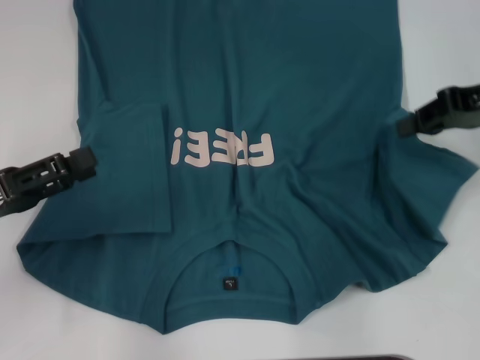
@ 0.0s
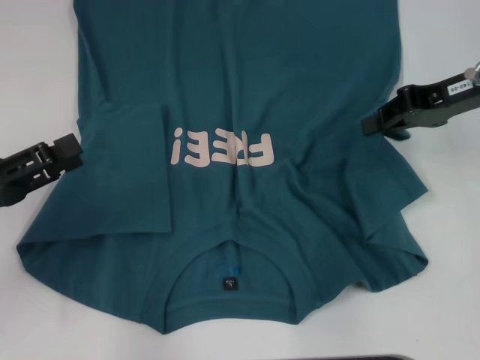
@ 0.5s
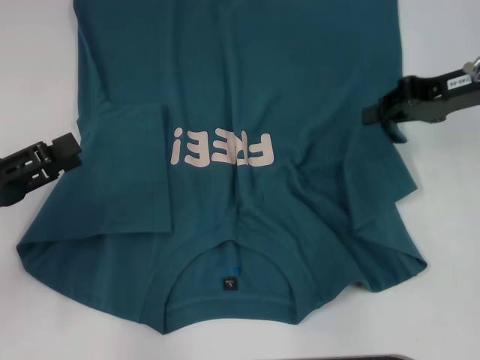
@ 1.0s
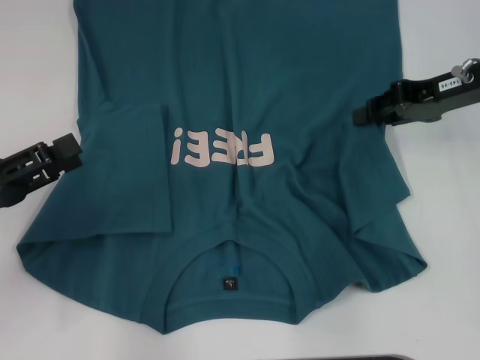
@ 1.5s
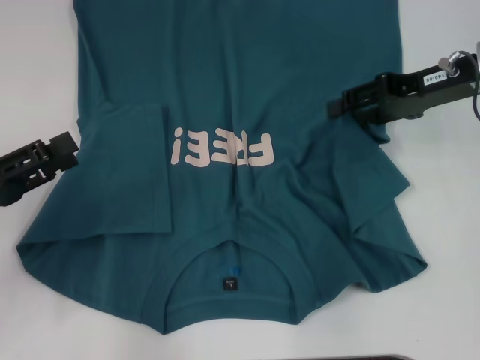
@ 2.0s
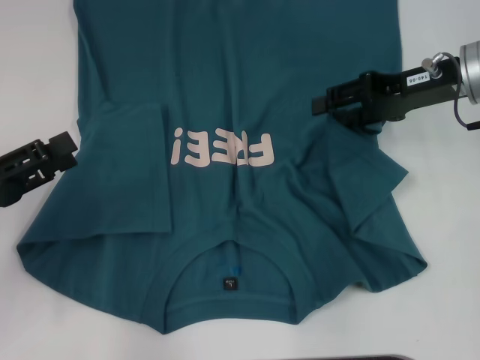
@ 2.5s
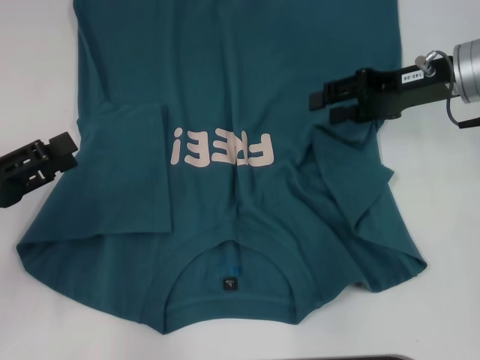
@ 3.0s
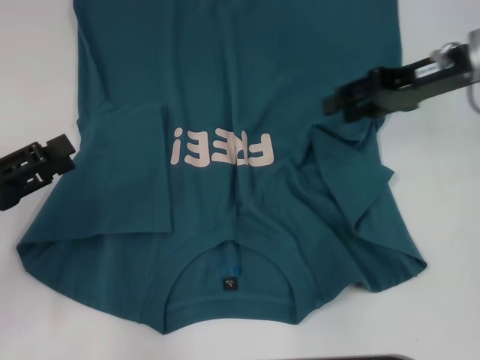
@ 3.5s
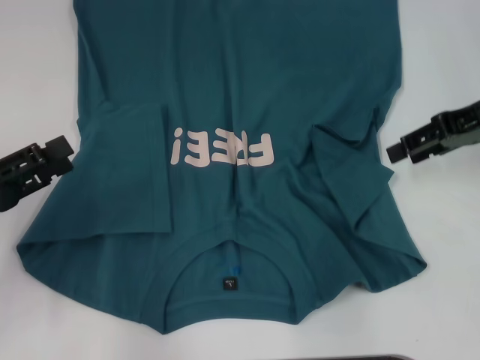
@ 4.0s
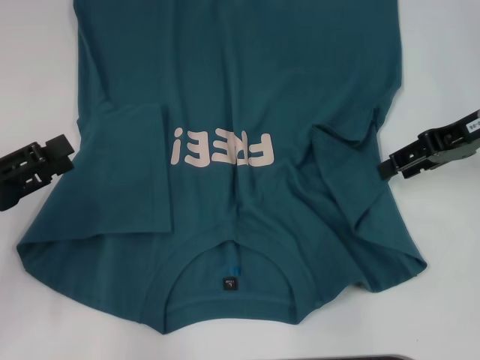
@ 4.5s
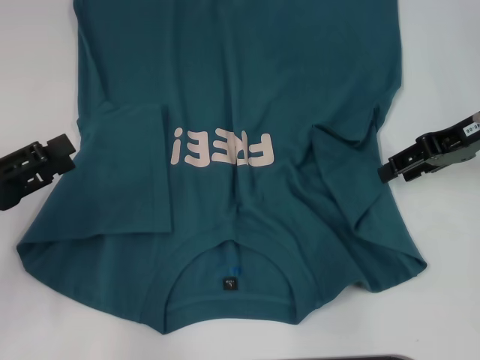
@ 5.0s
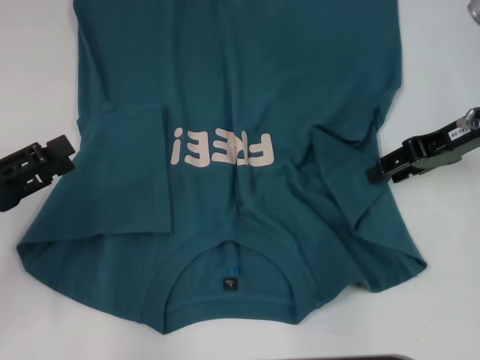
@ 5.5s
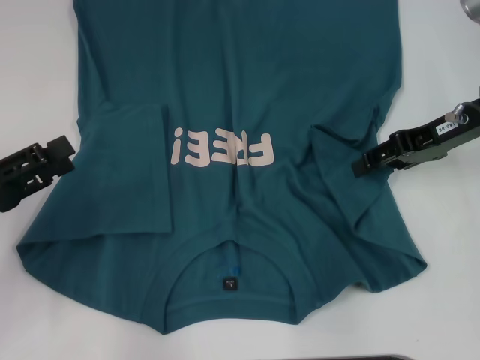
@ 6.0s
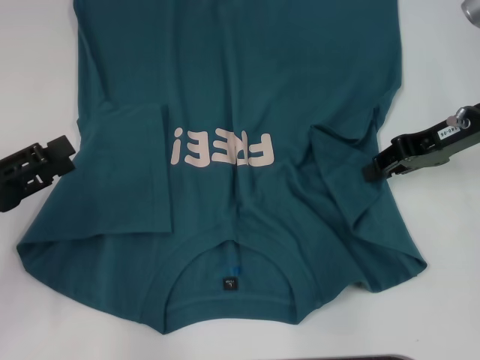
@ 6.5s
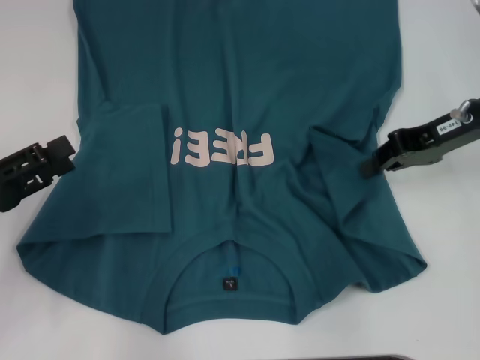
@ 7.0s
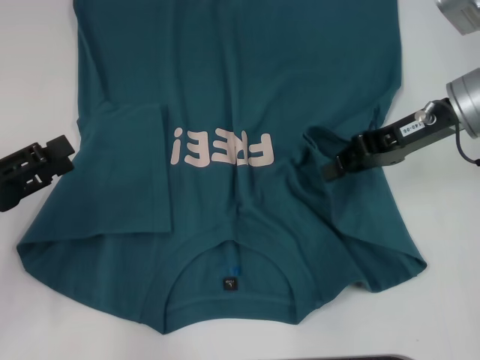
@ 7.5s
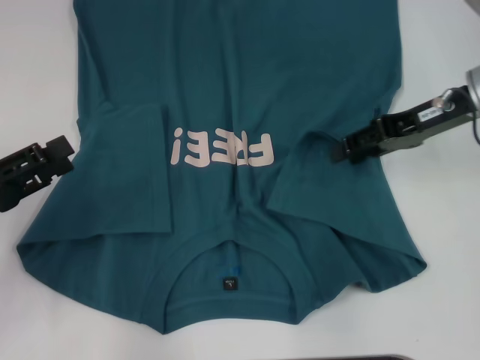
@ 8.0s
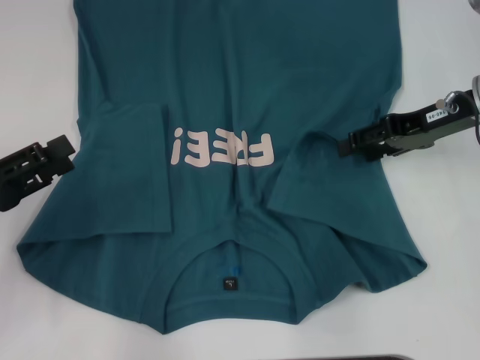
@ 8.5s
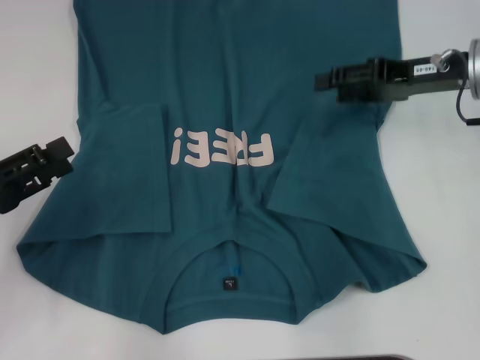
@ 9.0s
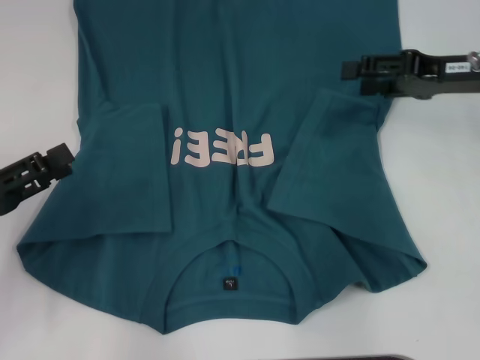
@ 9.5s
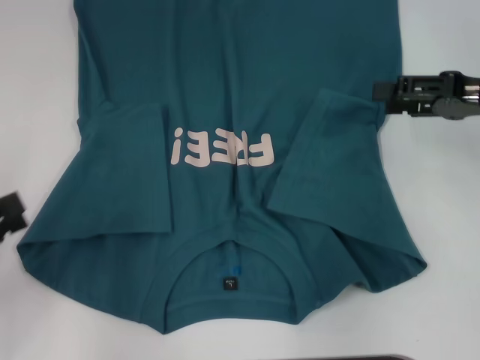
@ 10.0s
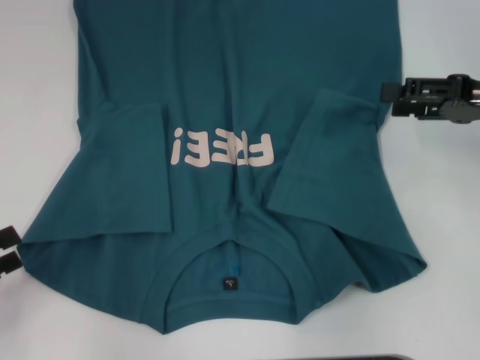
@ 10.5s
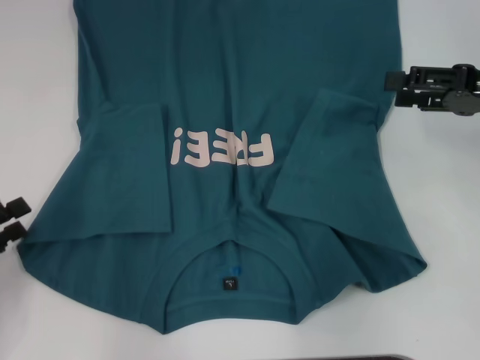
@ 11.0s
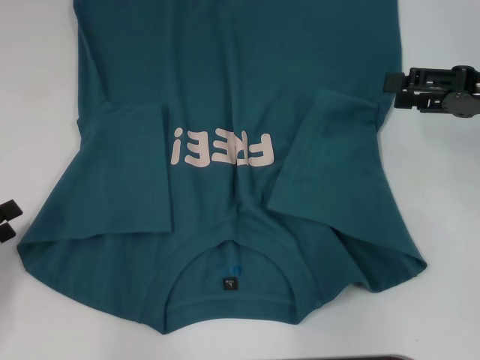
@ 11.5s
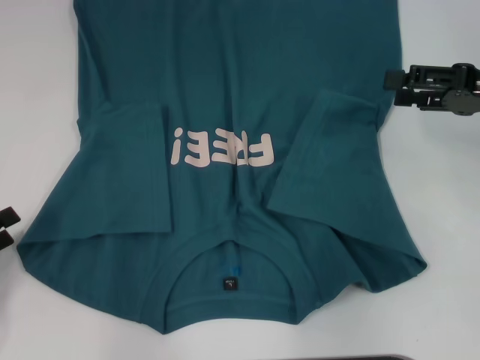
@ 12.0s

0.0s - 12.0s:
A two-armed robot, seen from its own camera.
Step, 0.0s - 9.0s: Fold the bottom right sleeve to the right.
0.0s - 2.0s: The right gripper shifts by some 5 cm, and opens up.
2.0s - 8.0s: The grippers move only a little.
8.0s - 10.0s: The right gripper goes roughly 5 cm to the right, and opens its fingers; the left gripper changes place by roughly 5 cm.
10.0s - 12.0s: The grippers make only small movements.

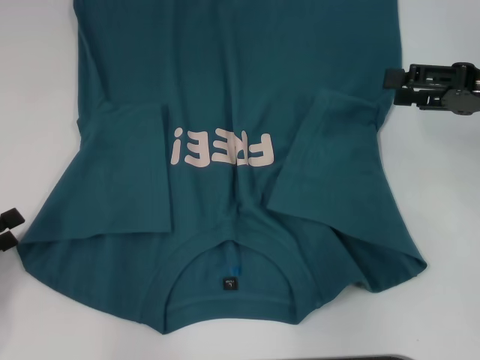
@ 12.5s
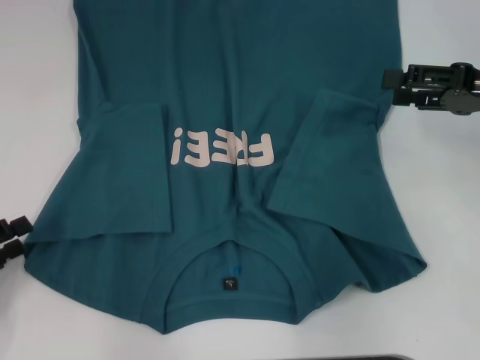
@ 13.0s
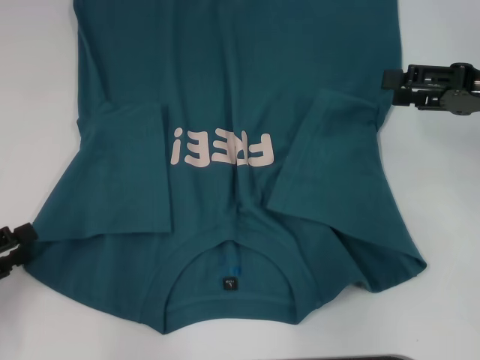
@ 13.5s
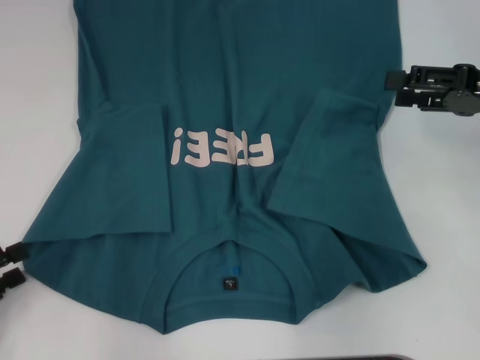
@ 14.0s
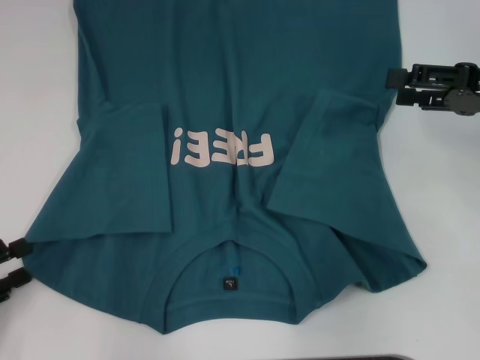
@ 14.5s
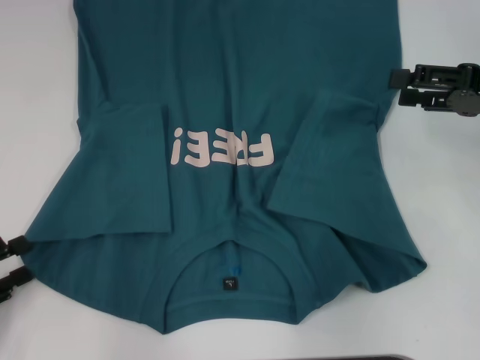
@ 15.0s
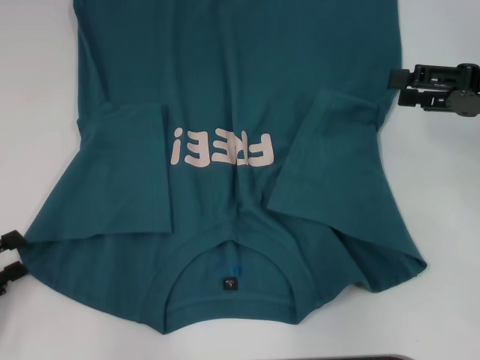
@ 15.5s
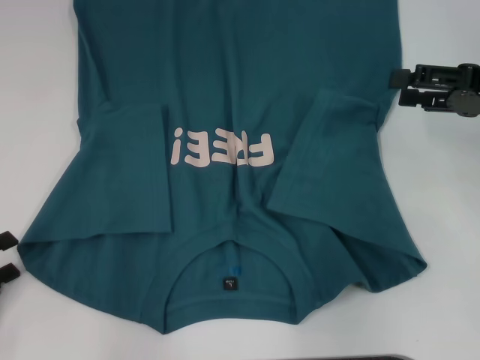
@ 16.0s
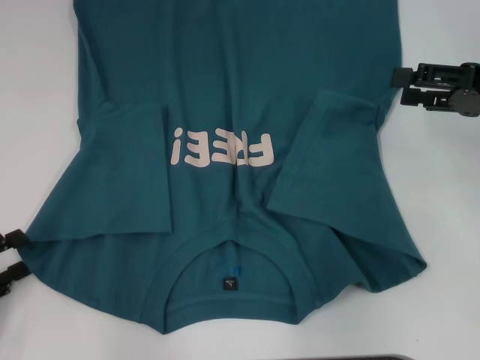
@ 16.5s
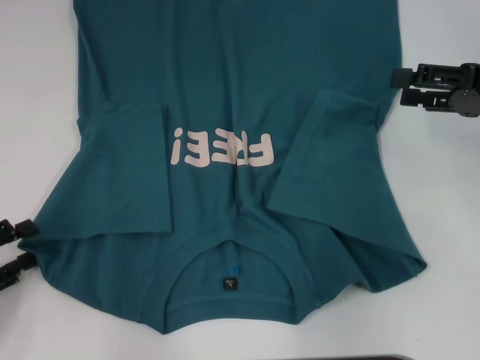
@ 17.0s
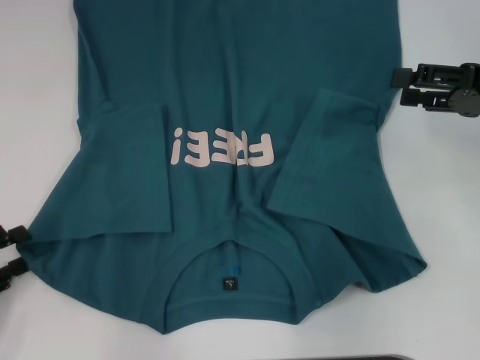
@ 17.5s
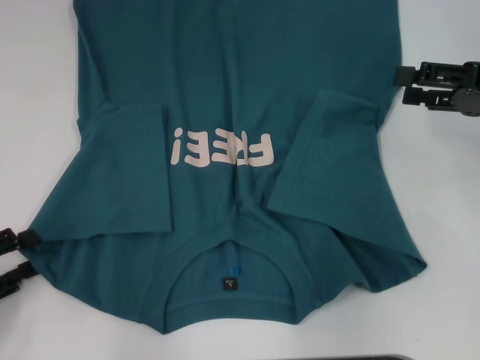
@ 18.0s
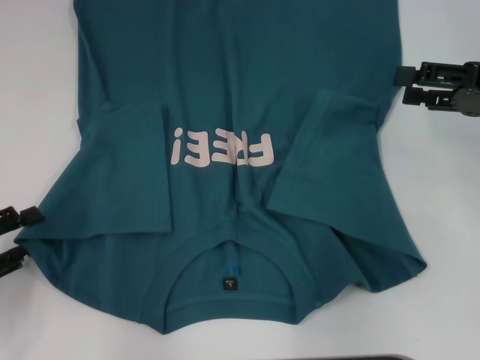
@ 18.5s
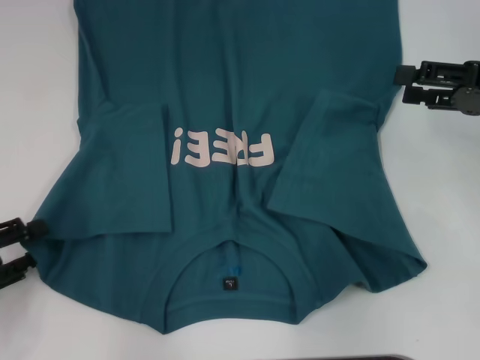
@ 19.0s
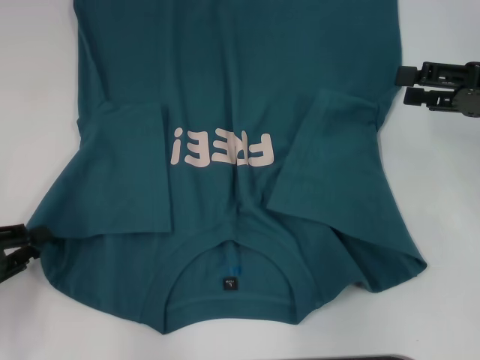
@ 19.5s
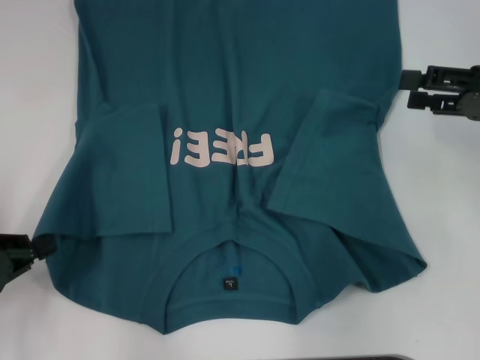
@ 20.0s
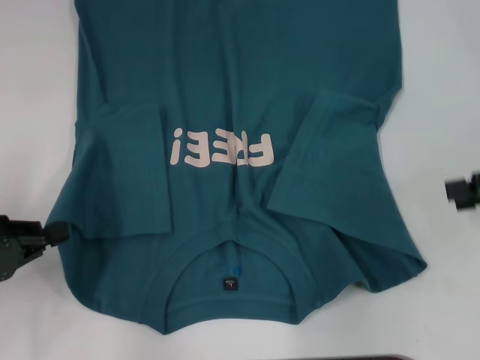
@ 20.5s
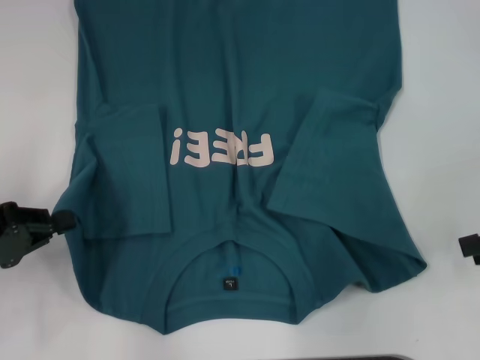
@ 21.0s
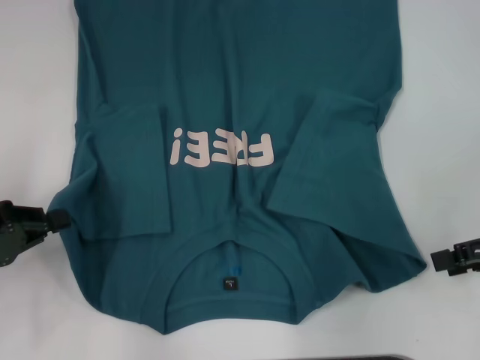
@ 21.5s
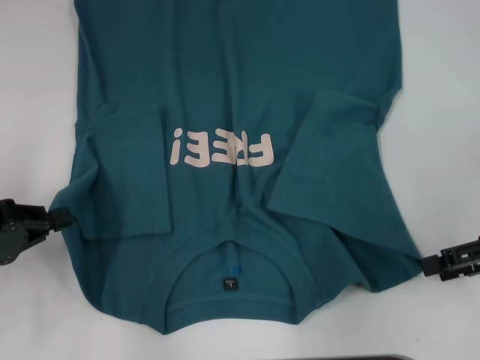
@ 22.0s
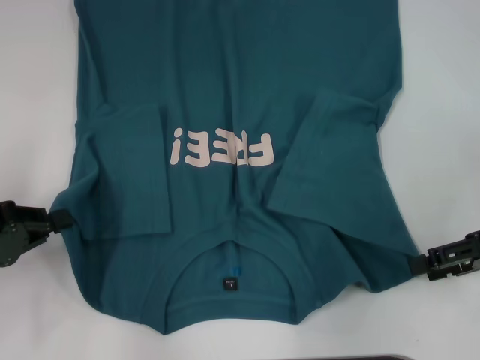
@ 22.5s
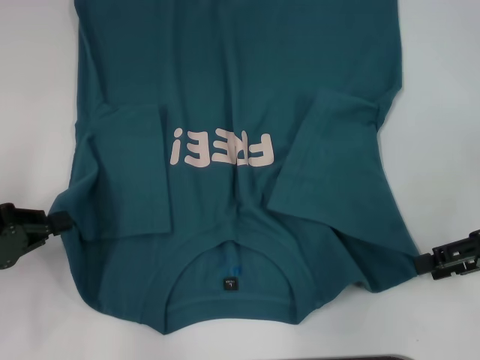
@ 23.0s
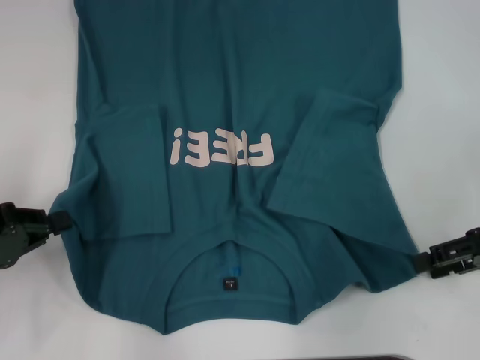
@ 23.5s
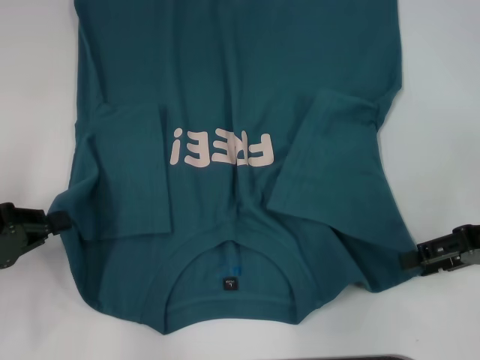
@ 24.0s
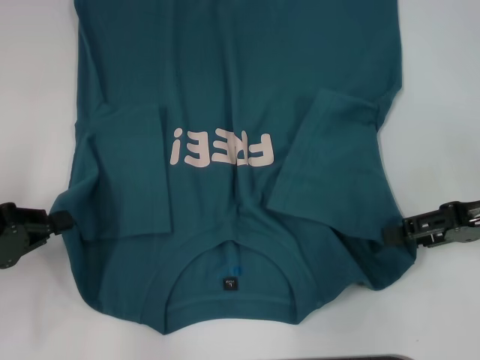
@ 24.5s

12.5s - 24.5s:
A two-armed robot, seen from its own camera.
Step, 12.5s - 19.5s: Grab the bottom left corner with your left hand.
12.5s - 14.5s: The grippers move only a little.
14.5s - 18.5s: The grippers make only small movements.
18.5s - 20.5s: The right gripper changes place by some 5 cm; the left gripper closes.
20.5s - 22.5s: The right gripper changes place by some 5 cm.
22.5s - 24.5s: The grippers make only small movements.

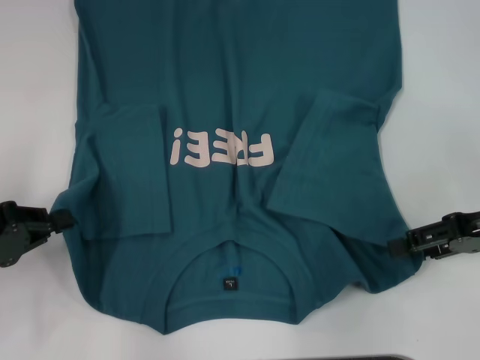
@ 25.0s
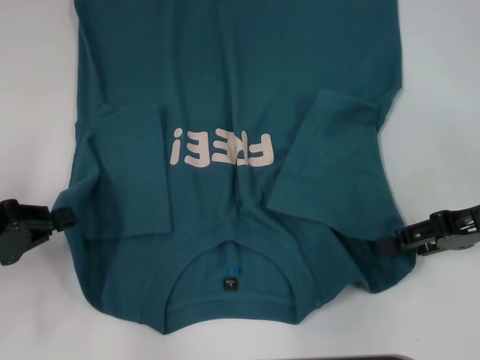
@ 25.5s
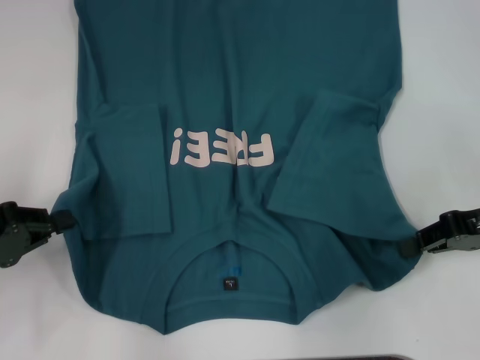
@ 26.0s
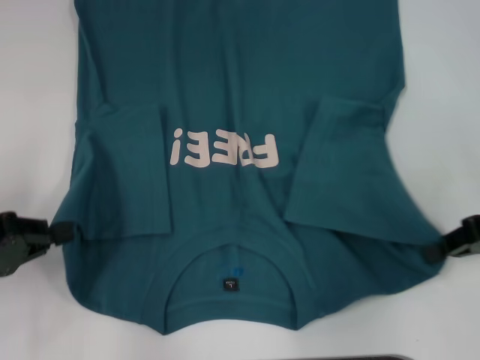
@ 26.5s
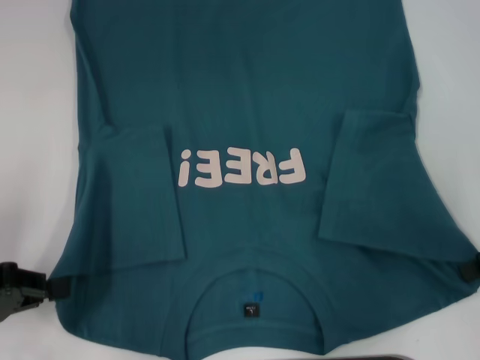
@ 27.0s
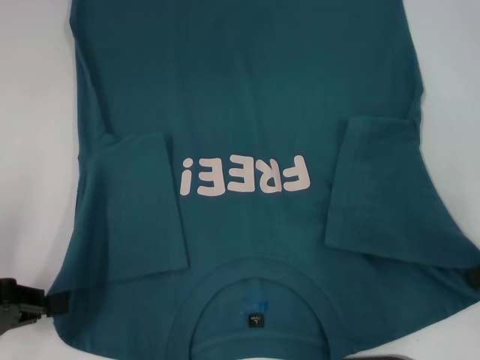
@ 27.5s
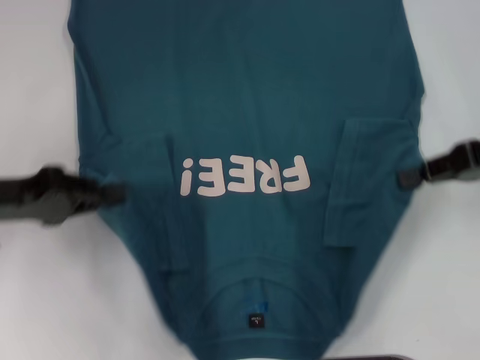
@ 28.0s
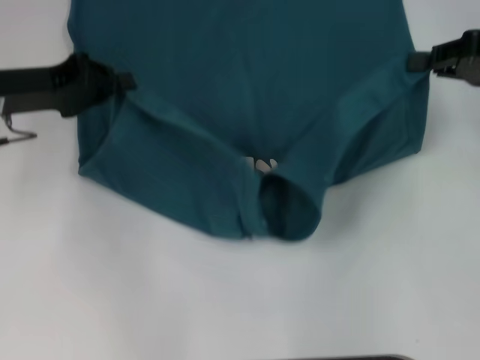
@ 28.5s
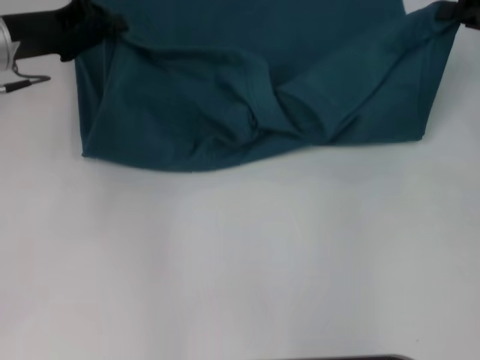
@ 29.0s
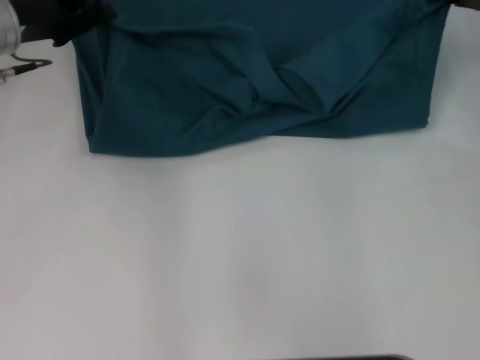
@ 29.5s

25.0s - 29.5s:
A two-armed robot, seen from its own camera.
25.0s - 27.0s: The right gripper closes its fingers.
27.0s - 29.5s: The left gripper travels forward and to the right by approximately 25 cm. Meanwhile the right gripper moves forward, about 15 cm.
